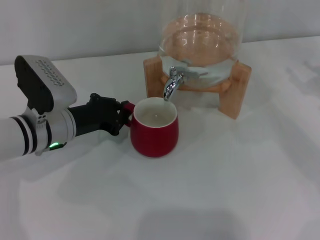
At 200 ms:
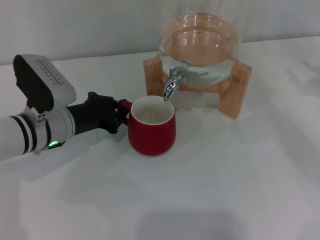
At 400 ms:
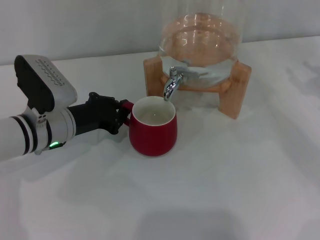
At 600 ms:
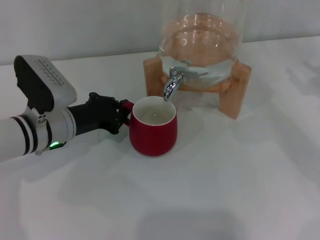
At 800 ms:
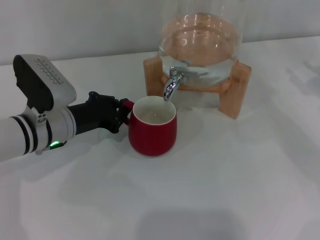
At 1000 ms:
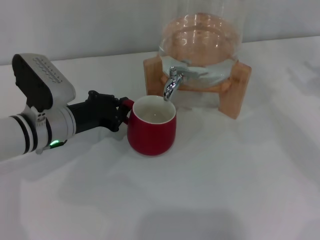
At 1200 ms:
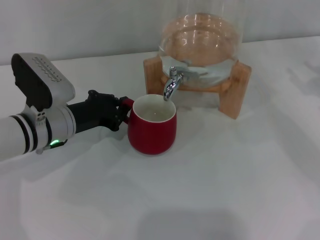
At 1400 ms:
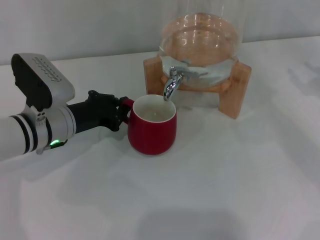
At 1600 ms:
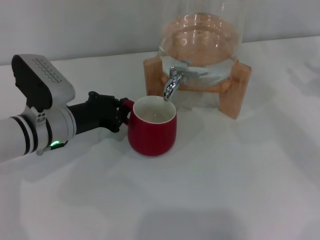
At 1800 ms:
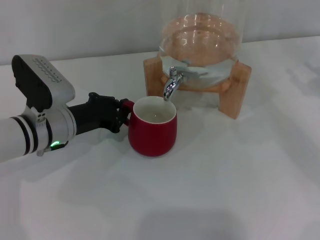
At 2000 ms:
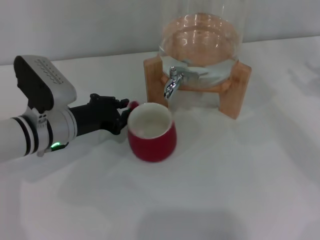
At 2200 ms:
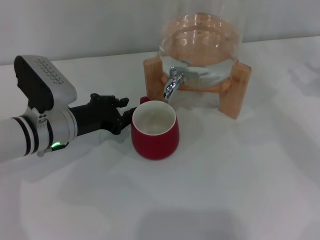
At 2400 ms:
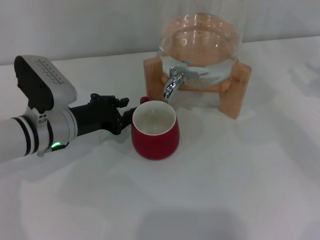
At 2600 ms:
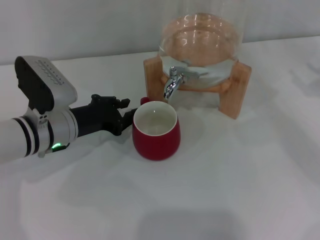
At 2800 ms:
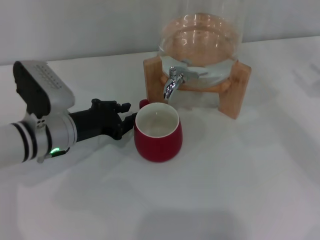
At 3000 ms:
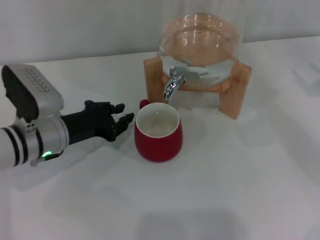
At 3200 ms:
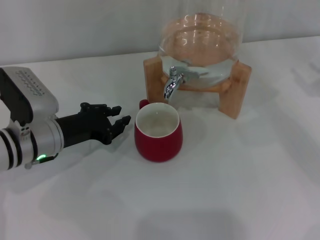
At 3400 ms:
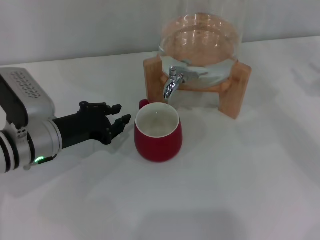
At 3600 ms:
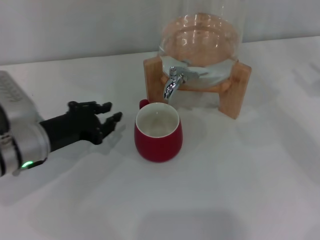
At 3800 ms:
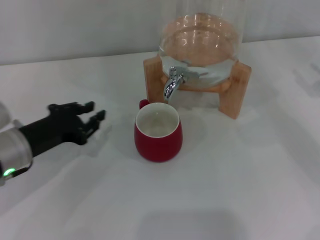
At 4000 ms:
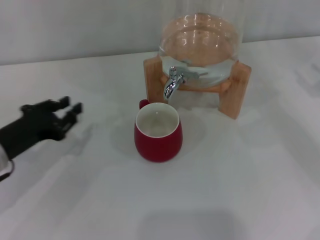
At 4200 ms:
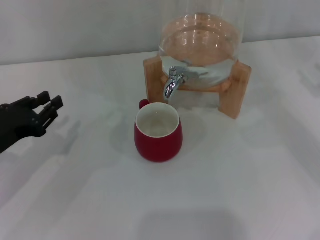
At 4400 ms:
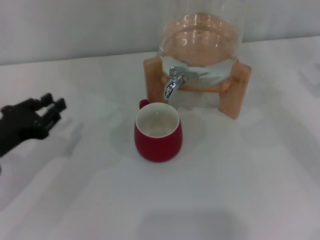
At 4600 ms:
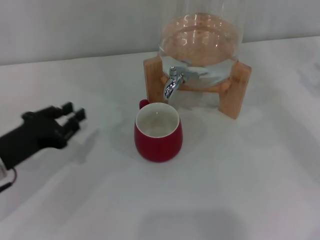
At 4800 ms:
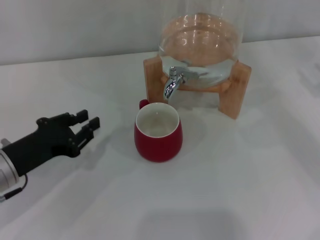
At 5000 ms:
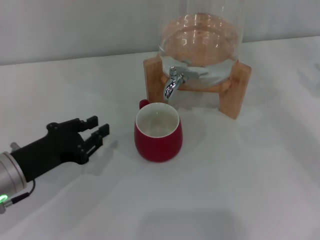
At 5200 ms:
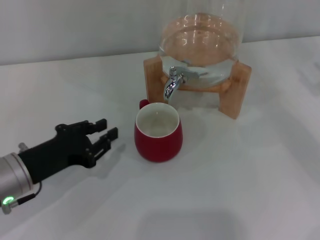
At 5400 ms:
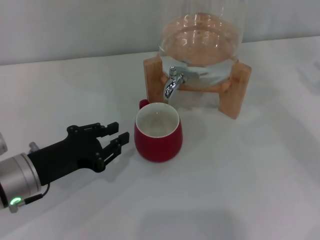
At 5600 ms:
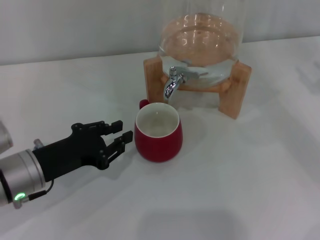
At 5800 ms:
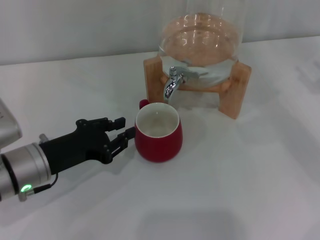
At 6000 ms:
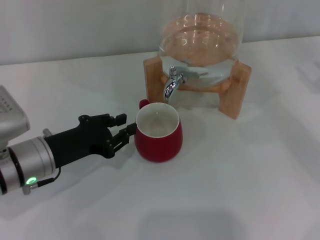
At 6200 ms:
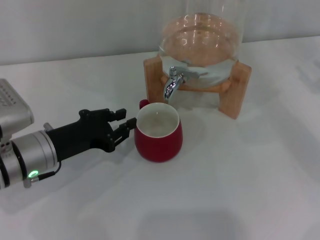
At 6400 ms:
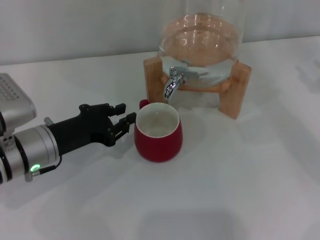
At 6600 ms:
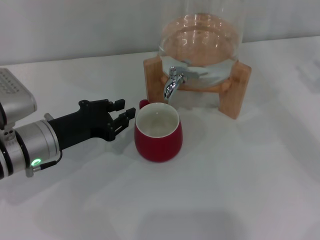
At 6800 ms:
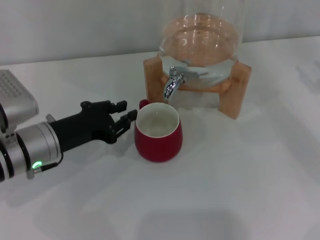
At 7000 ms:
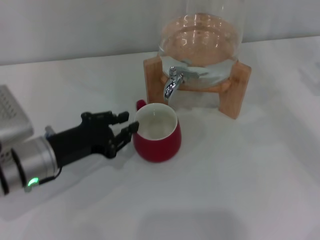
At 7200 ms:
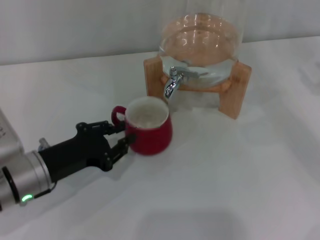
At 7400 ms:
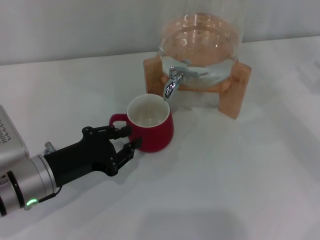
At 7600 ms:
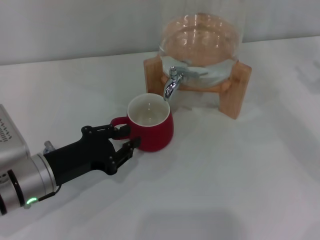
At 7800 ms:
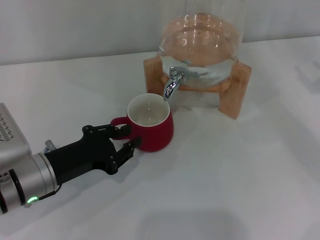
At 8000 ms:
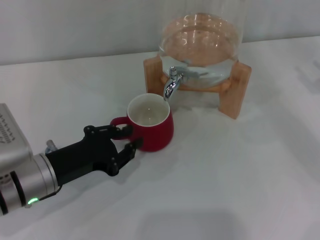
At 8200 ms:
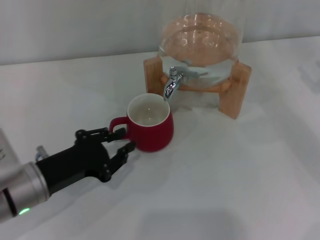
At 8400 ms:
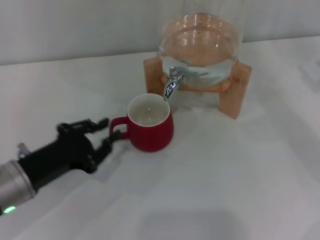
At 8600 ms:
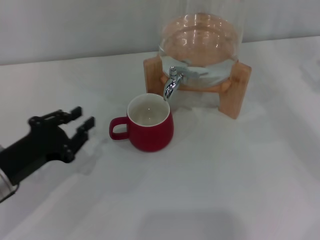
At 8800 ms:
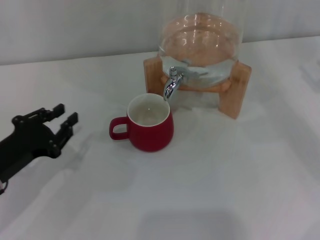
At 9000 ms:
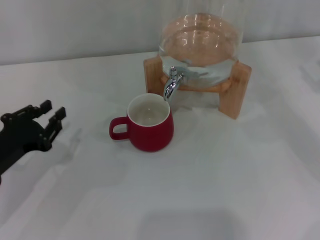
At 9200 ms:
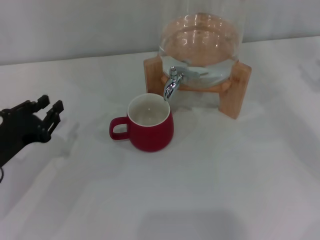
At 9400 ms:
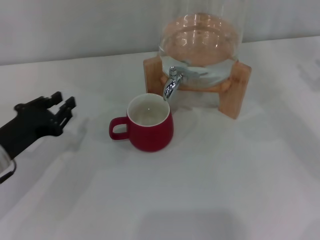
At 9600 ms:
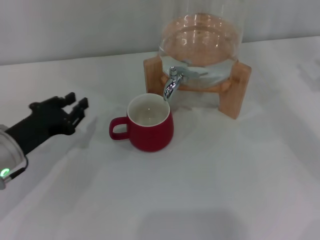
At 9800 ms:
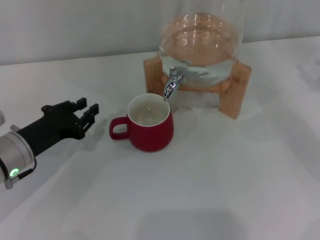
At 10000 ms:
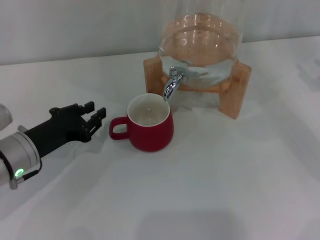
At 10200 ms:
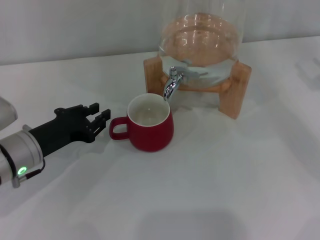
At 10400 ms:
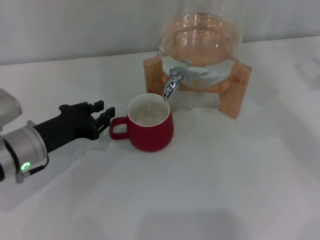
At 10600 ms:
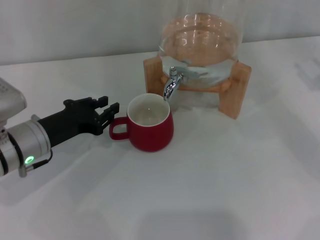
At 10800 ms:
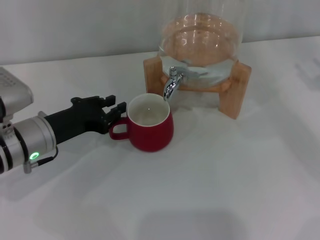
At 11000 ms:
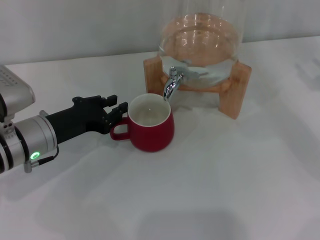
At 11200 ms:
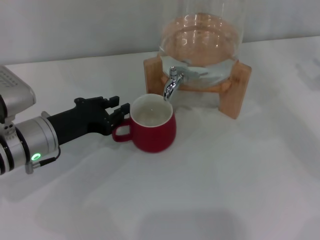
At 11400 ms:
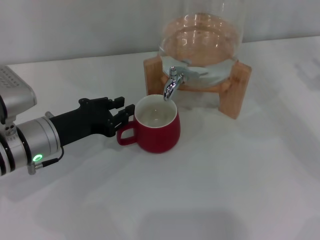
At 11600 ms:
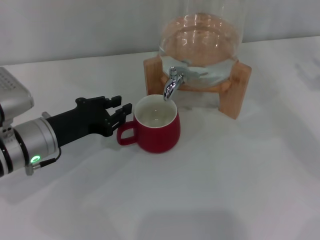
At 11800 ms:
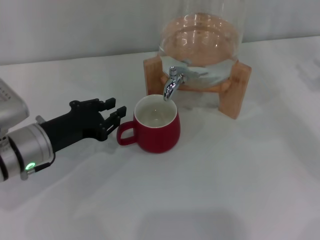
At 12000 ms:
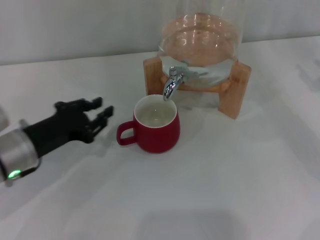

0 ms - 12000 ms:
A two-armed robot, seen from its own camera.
Task of the whole recording: the left gripper pick up the red cup and place it horizontally under the faucet, the right gripper turn on the faucet to fill the cup, and then turn off the faucet.
Step, 0 ms - 3200 ms: Move the cup beneath the water dispenser nozzle with the left gripper.
0 ms - 1600 ms: The two grippers keep their place.
1600 ms - 3000 ms: The grippers move only a little.
3000 ms - 4400 ms: The left gripper shifts some 10 cm to the left and backward.
4400 ms - 6000 ms: The left gripper goes approximately 10 cm to the right.
6000 ms - 7600 ms: The grippers stay close to where they were, moving slightly.
7600 ms - 9000 ms: The left gripper travels to the left by roughly 5 cm.
9000 ms - 10400 ms: The left gripper heads to the right and forward, covering some 10 cm.
10400 ms - 12000 ms: The grippers move only a little.

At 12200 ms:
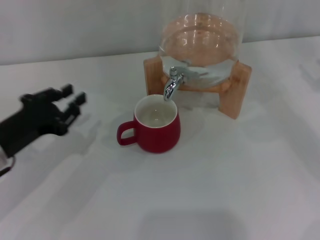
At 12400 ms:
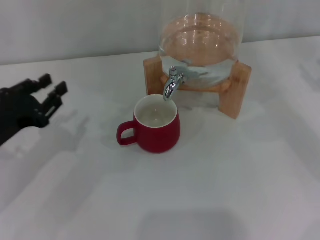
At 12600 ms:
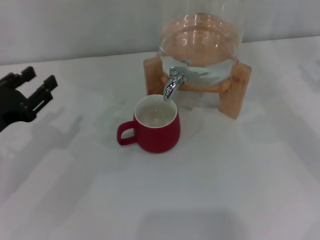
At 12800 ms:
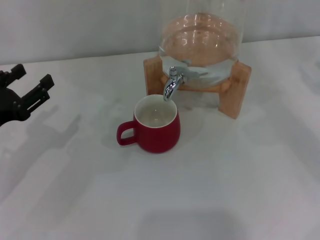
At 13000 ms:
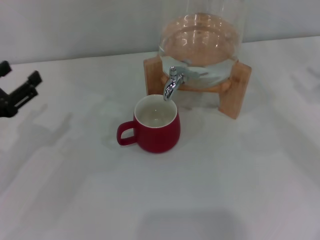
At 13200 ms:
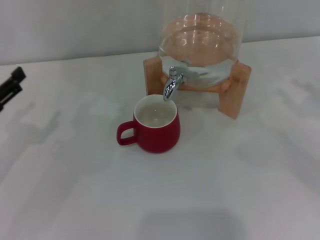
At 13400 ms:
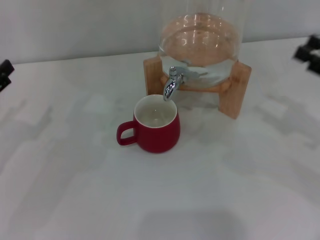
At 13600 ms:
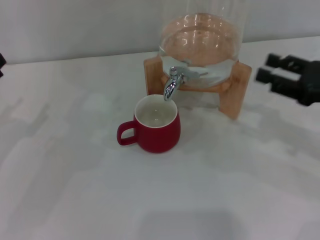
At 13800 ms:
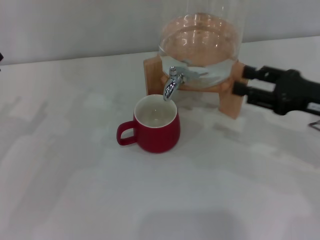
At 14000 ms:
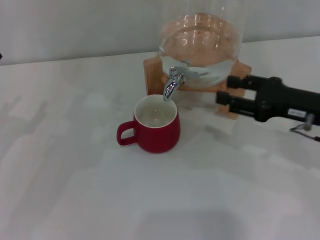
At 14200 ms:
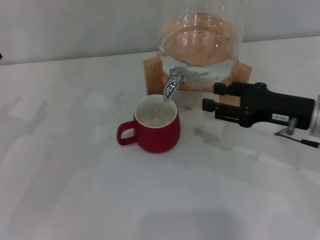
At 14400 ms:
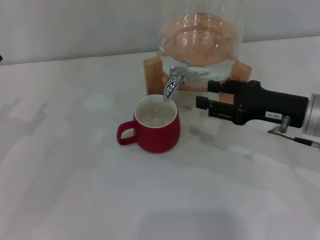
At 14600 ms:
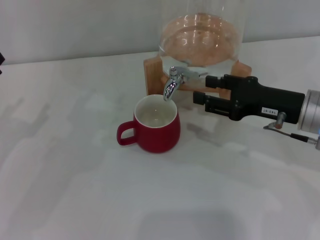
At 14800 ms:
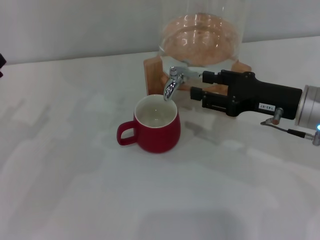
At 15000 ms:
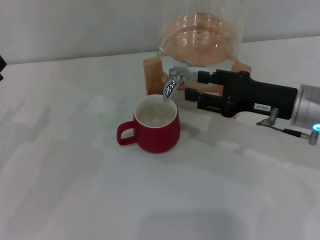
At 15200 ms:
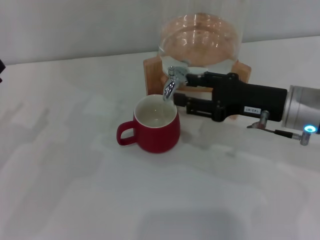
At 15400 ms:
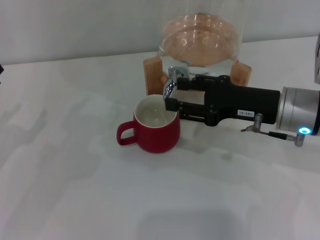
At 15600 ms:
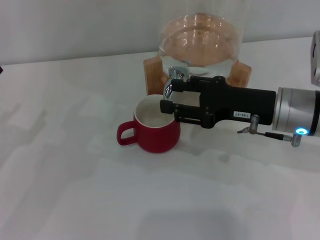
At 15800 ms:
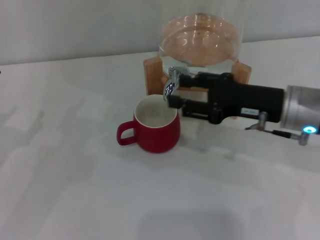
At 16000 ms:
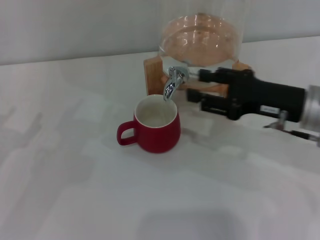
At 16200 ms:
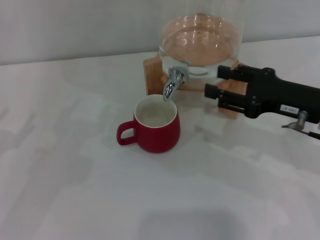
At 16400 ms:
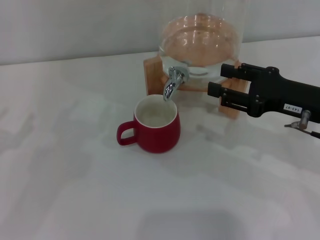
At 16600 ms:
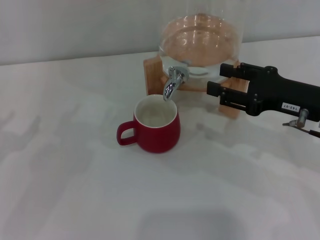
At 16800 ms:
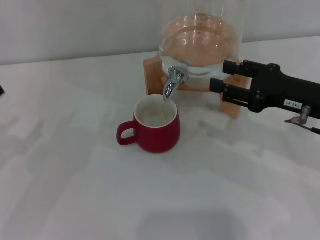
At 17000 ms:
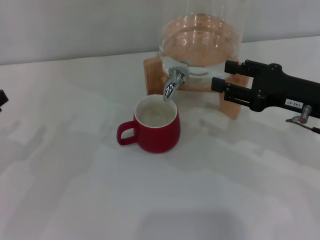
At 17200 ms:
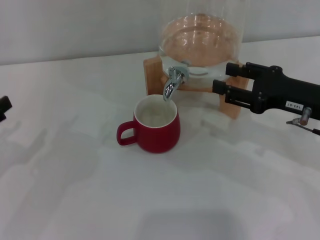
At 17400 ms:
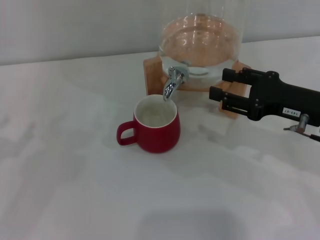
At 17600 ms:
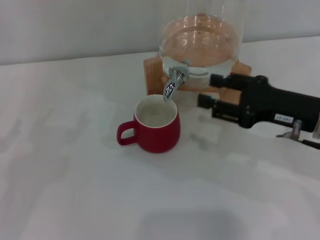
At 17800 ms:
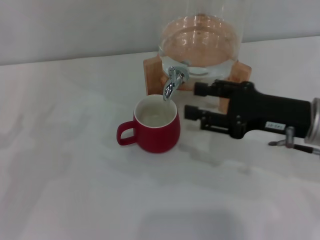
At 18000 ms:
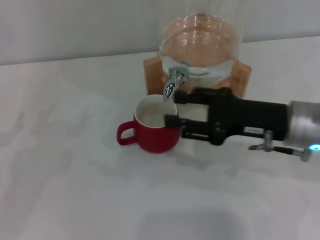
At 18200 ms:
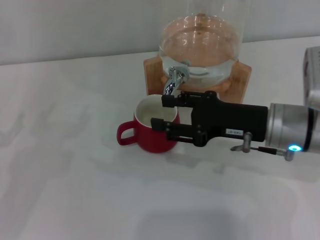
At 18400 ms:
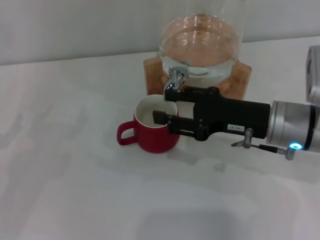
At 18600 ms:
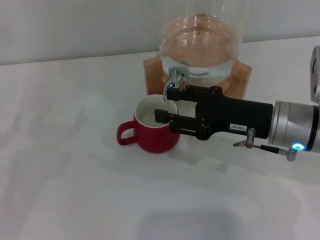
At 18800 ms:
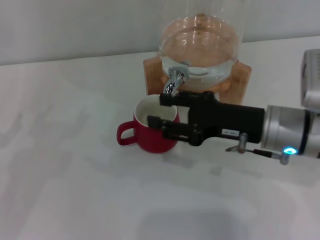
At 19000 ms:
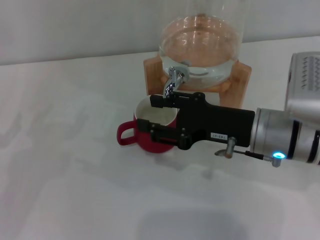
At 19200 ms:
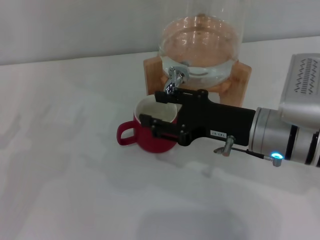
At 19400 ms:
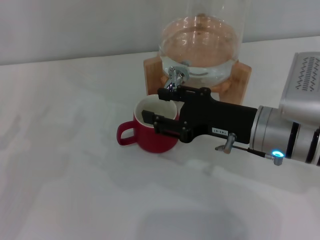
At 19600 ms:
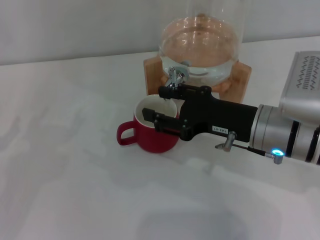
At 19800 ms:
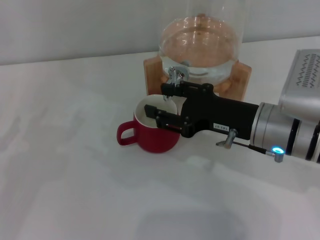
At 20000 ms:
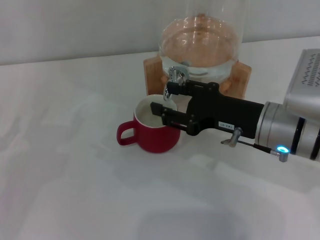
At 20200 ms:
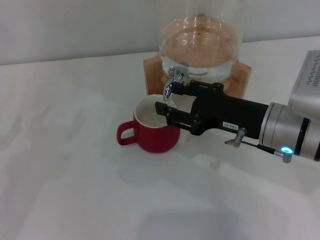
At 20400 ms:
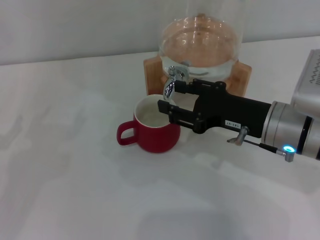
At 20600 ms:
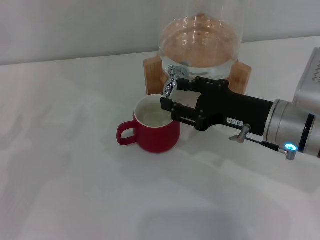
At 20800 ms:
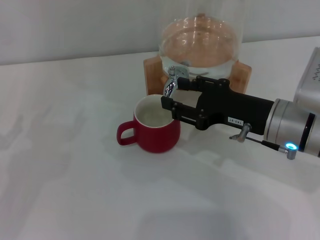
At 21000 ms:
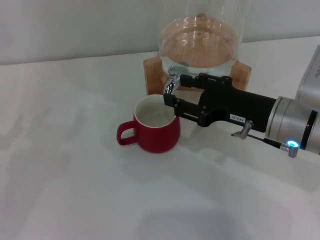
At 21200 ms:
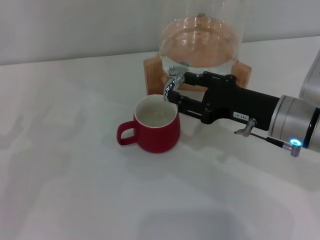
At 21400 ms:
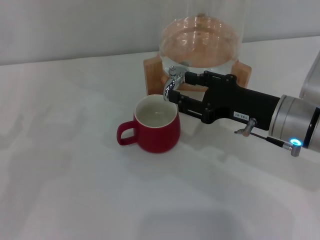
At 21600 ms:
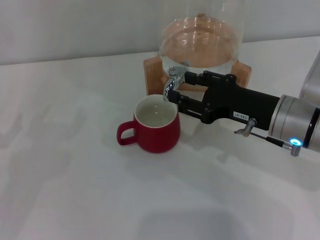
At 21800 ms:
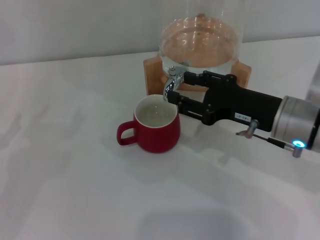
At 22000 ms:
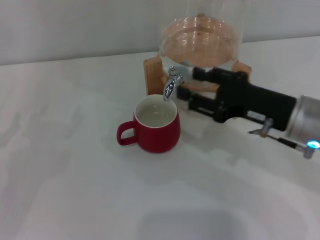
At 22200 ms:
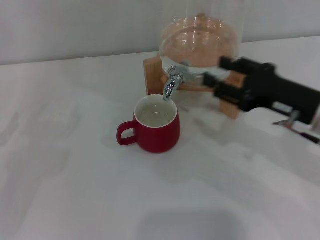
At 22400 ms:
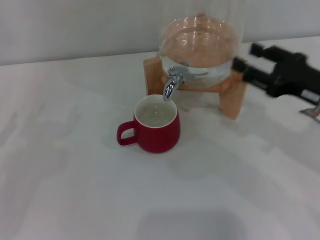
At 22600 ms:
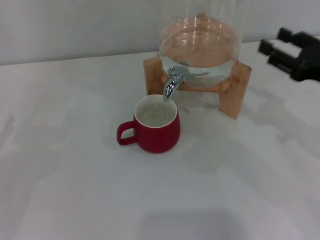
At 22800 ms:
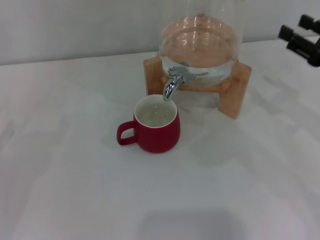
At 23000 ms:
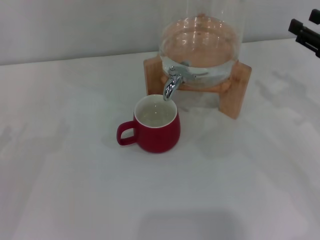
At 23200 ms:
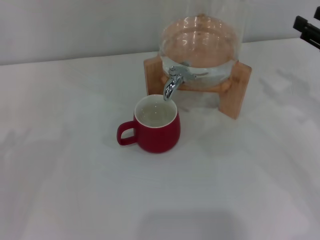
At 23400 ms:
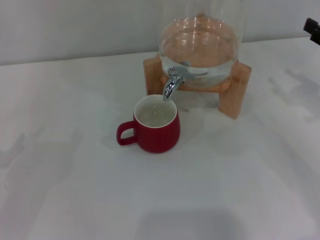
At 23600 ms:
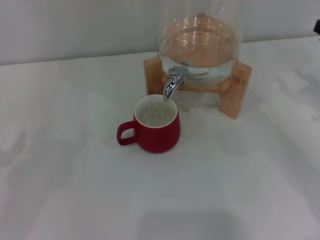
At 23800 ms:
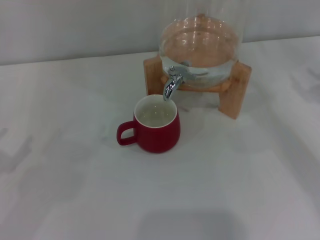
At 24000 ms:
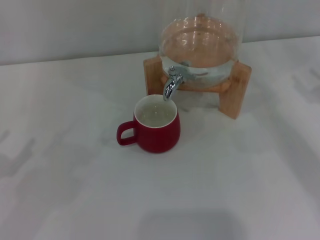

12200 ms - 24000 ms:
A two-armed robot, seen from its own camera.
Task of the whole recording: the left gripper pick up the red cup and place it horizontally under the faucet, the right gripper turn on the faucet to fill the cup, and then turn off the faucet.
Step, 12200 ms - 15800 ms: Open the dispenser valve and fill the cup with water with the right gripper.
Step, 16000 ms - 22000 ms: Close the dispenser valve with the right gripper.
12200 ms - 13600 ms: Both grippers move to the left, some 10 cm. The left gripper opens up.
13600 ms - 15200 ms: The right gripper is displaced to the left by roughly 10 cm.
15200 ms - 16600 ms: The grippers stay close to where they were, moving slightly.
16600 ms - 18200 ms: The right gripper travels to the left by about 5 cm.
18200 ms - 21000 ms: The grippers stay close to where they were, moving slightly.
21000 ms - 22600 ms: The right gripper heads to the right, covering roughly 10 cm.
22600 ms - 24000 ms: The right gripper travels to the right by approximately 10 cm.
